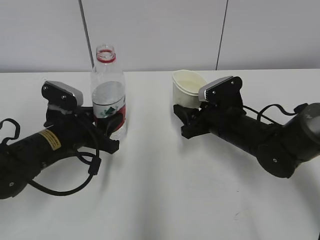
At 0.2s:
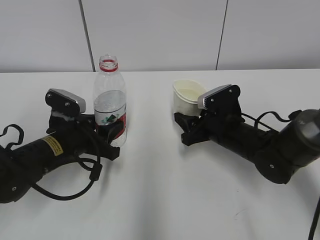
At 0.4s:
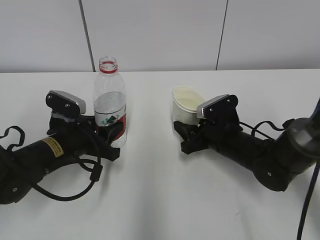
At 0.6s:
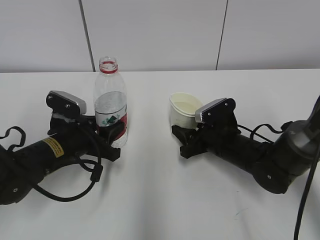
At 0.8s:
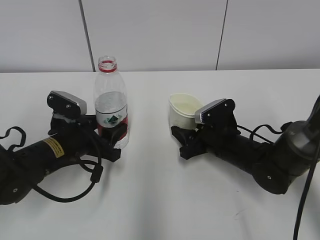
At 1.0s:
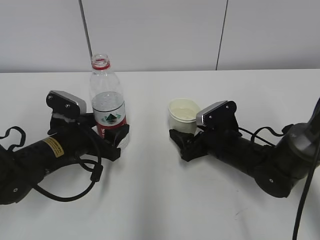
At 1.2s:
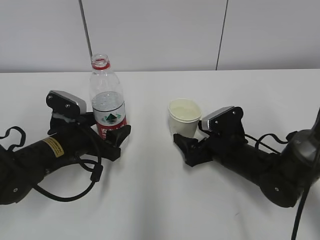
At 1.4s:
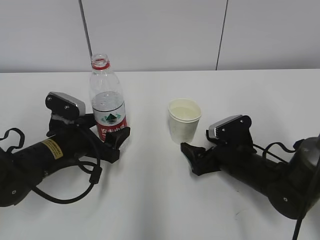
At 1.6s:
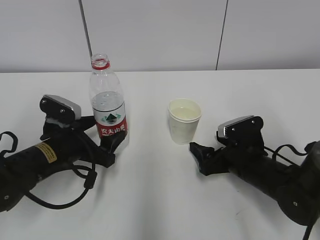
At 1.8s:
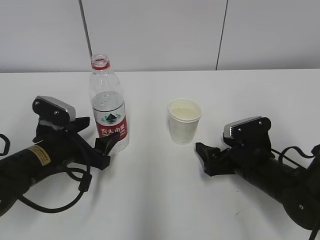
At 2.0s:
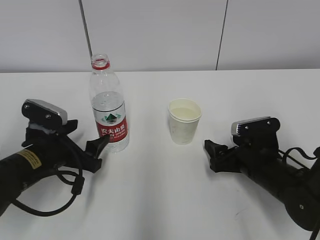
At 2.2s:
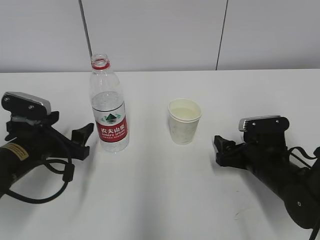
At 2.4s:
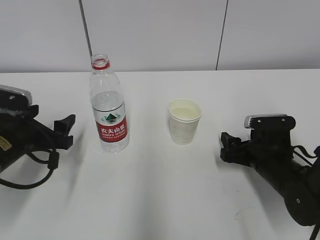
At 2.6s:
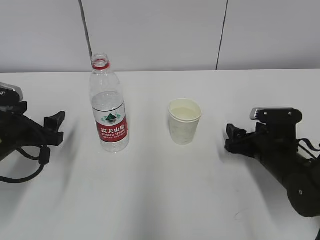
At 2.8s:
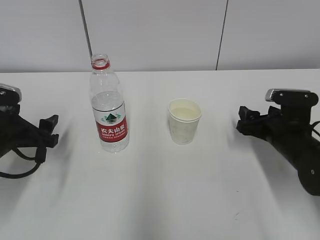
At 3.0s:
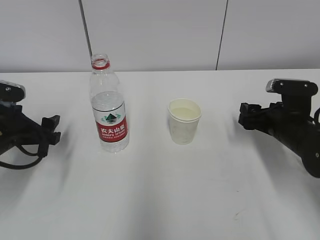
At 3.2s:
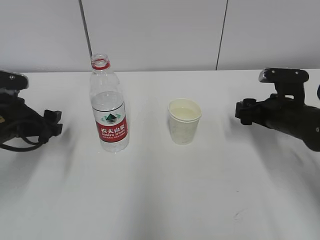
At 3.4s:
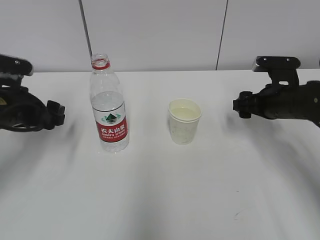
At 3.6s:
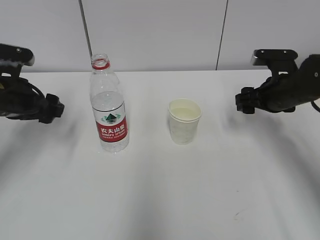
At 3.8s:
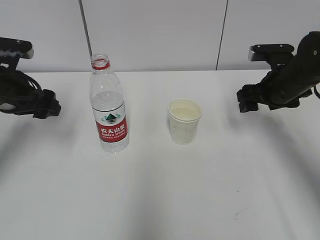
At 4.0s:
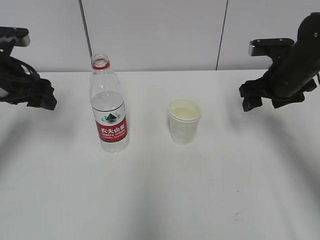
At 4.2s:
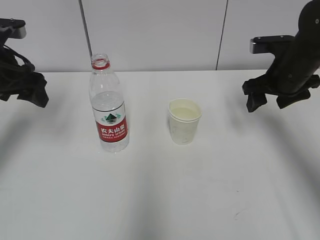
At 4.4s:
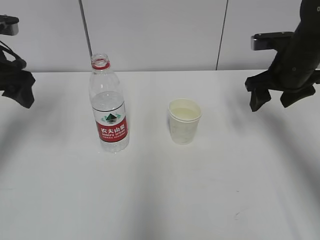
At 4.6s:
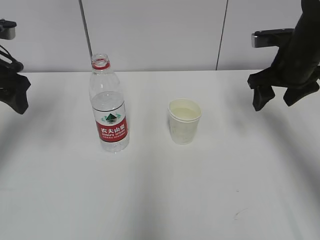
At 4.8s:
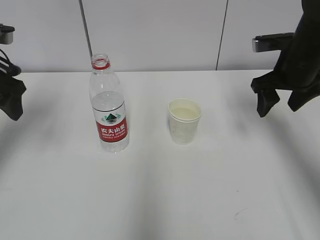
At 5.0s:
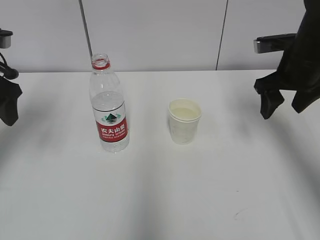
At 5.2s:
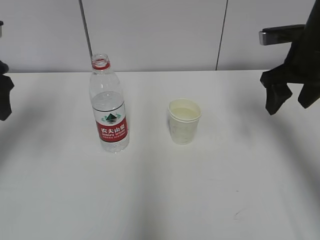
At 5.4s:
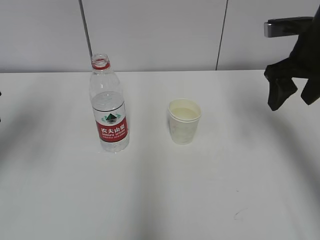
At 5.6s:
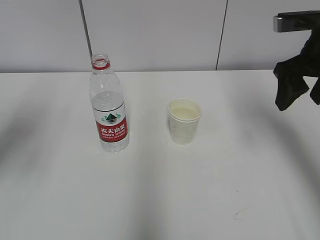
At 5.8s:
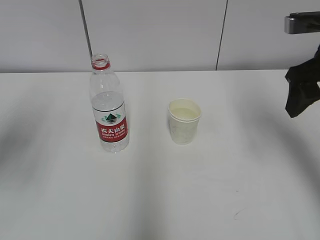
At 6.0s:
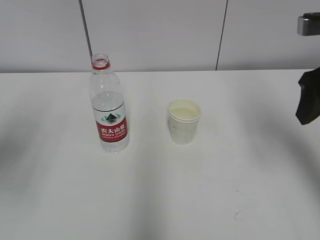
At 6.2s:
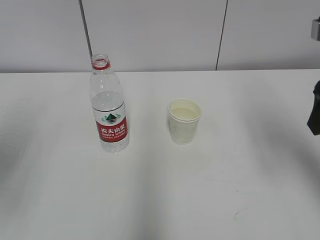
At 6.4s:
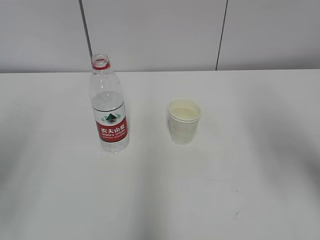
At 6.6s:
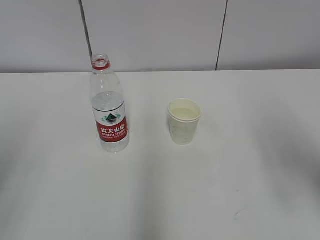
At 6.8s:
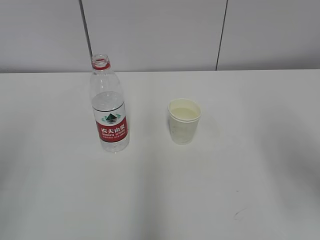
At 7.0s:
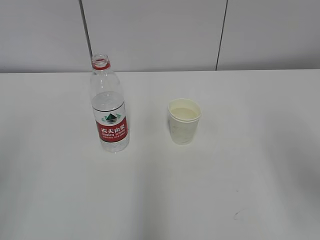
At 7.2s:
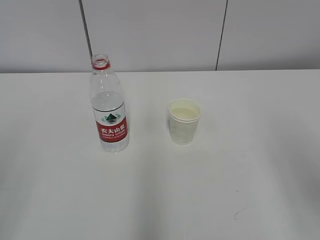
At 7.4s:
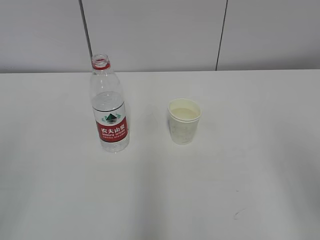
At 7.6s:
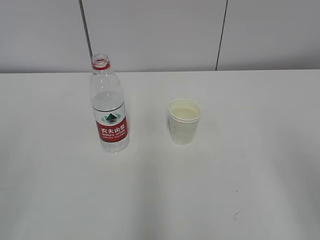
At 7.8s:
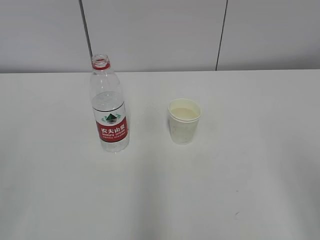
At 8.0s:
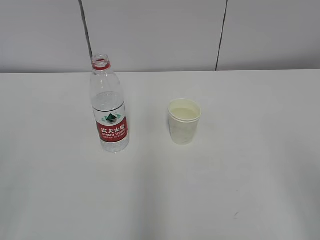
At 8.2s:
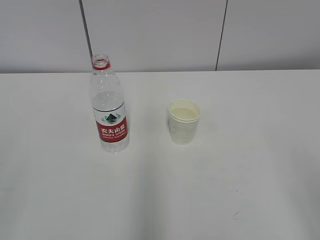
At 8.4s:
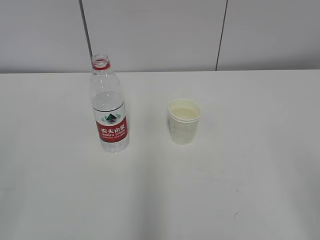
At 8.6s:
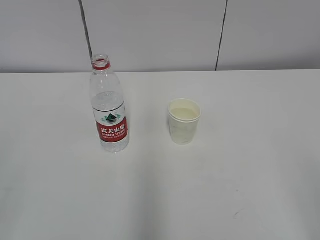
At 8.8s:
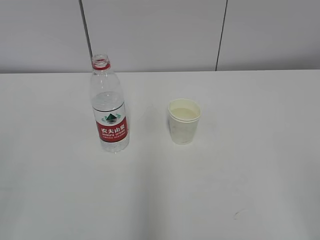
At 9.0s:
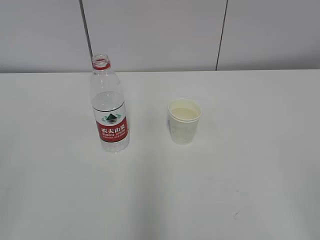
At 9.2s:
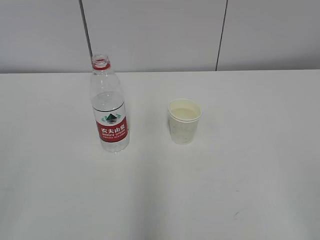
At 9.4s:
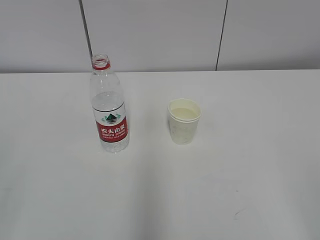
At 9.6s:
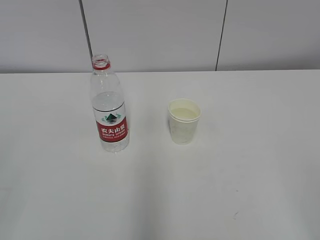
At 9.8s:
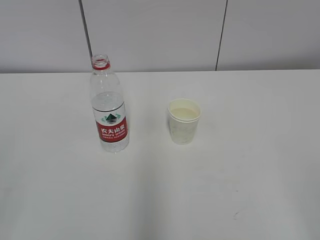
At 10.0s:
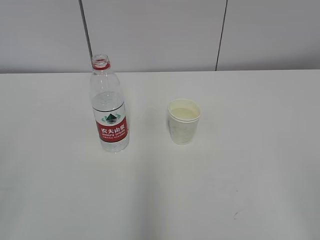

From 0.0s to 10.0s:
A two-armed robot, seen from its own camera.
From 0.0s to 1.4s: The right gripper is displaced downward by some 5 cm, and opens its fingers. The left gripper opens up.
From 1.4s to 2.8s: The left gripper moves to the left, some 10 cm. The right gripper is displaced to the right by roughly 10 cm.
From 2.8s to 4.2s: Both grippers travel together upward and forward, roughly 15 cm.
From 4.2s to 5.8s: The left gripper heads backward, covering approximately 10 cm. The right gripper is displaced upward and backward by about 10 cm.
From 5.8s to 7.2s: The grippers both shift backward by about 20 cm.

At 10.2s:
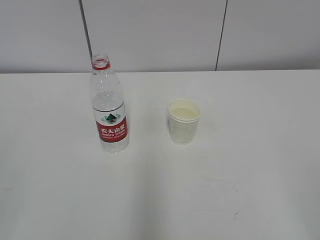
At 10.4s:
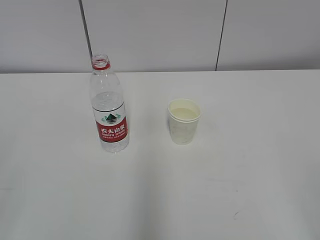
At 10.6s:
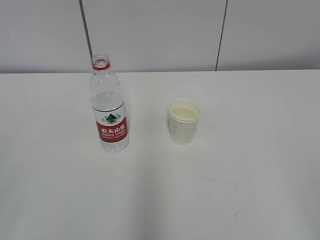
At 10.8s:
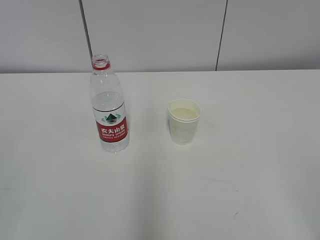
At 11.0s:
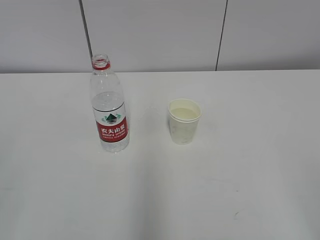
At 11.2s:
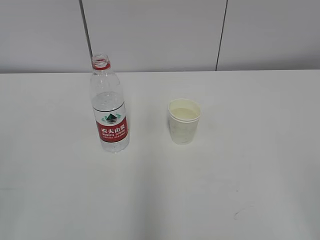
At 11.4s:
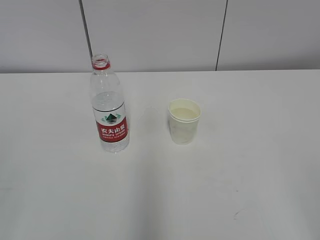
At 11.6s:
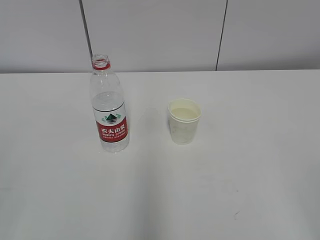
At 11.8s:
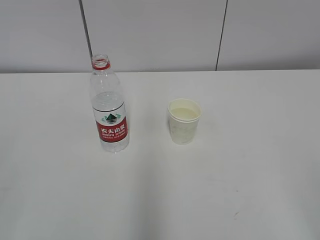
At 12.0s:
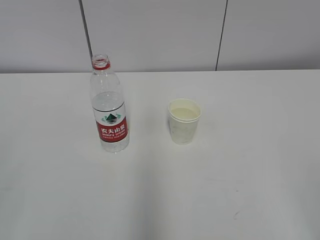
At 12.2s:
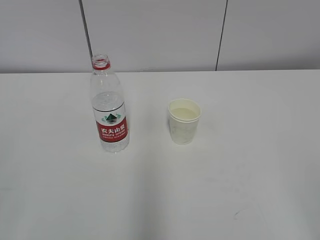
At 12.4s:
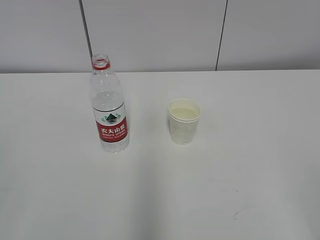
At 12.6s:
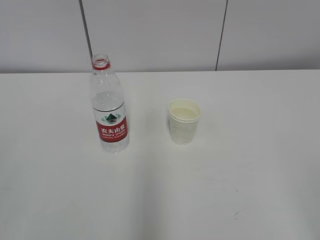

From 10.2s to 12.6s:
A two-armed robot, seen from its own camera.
From 10.2s to 12.6s: Neither gripper changes place.

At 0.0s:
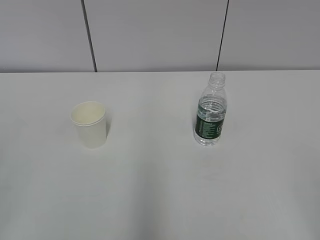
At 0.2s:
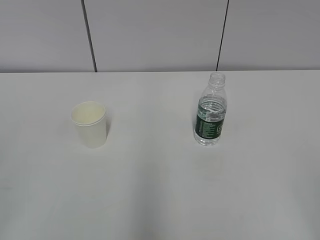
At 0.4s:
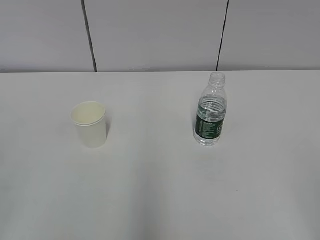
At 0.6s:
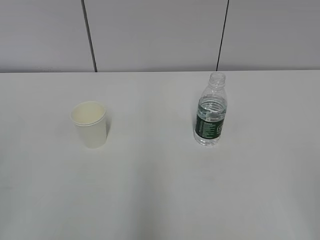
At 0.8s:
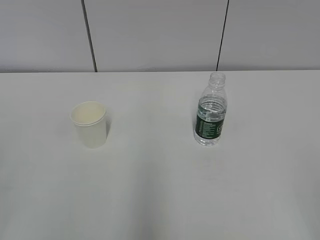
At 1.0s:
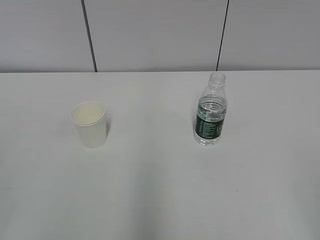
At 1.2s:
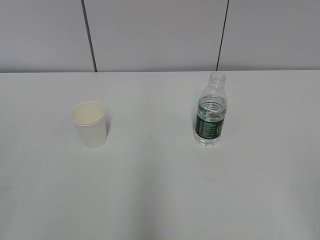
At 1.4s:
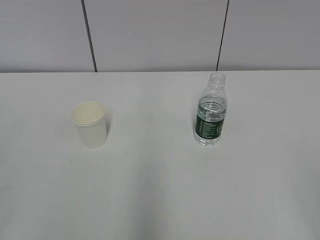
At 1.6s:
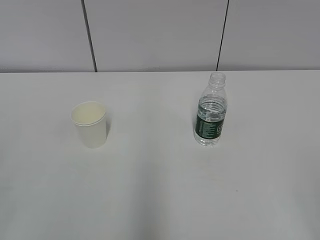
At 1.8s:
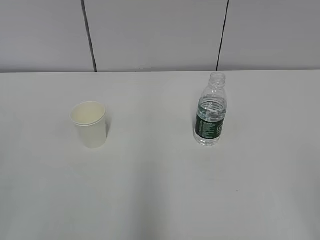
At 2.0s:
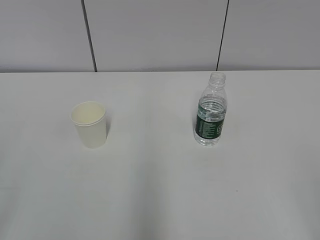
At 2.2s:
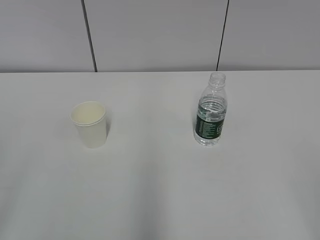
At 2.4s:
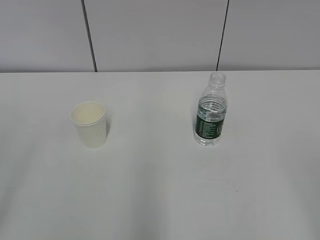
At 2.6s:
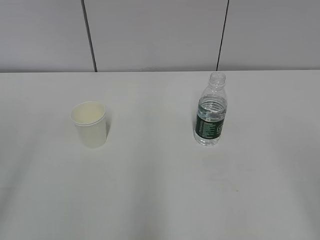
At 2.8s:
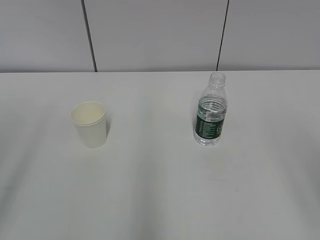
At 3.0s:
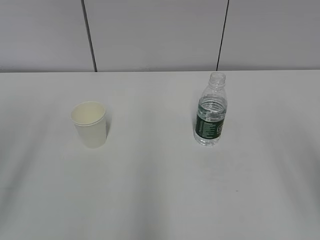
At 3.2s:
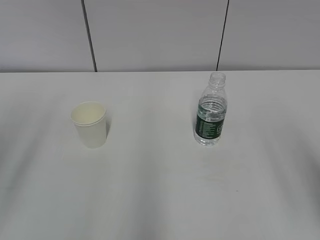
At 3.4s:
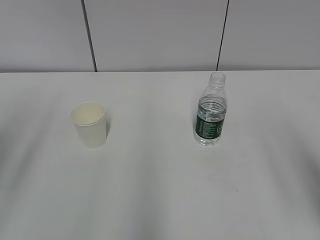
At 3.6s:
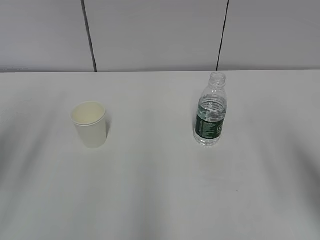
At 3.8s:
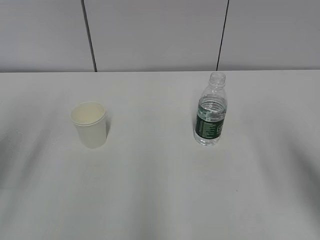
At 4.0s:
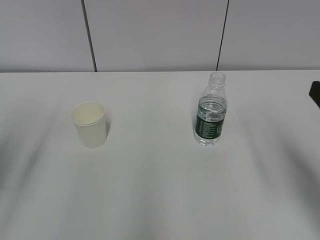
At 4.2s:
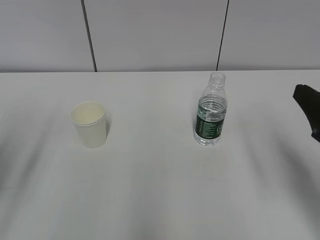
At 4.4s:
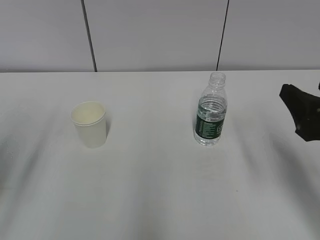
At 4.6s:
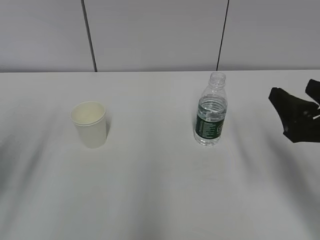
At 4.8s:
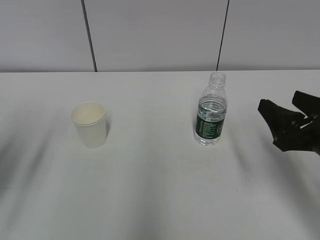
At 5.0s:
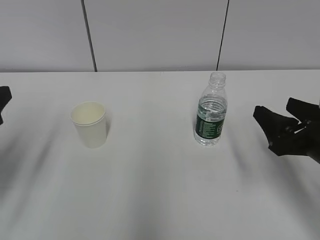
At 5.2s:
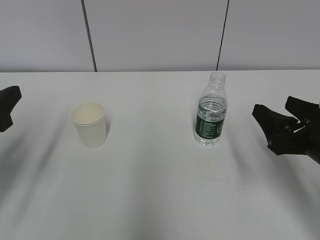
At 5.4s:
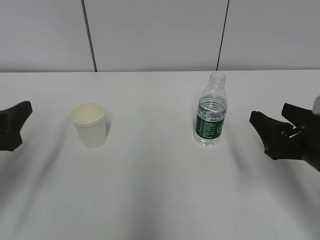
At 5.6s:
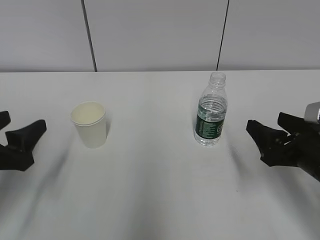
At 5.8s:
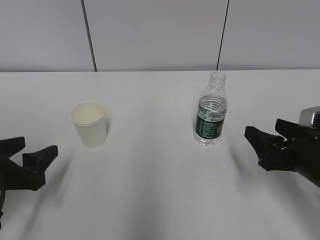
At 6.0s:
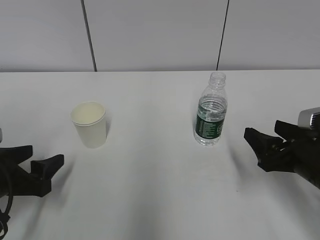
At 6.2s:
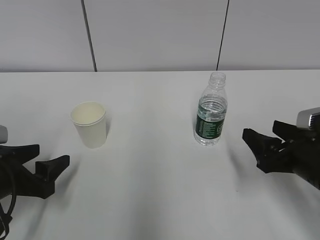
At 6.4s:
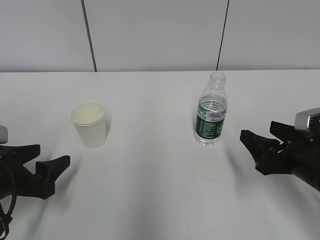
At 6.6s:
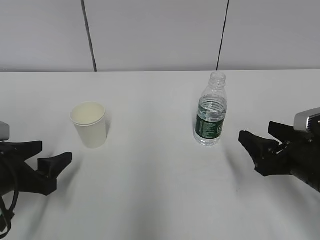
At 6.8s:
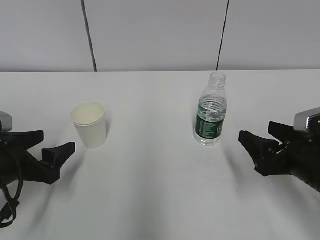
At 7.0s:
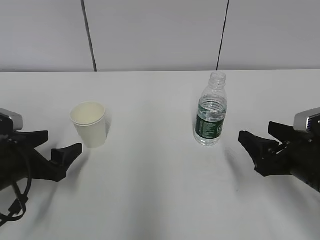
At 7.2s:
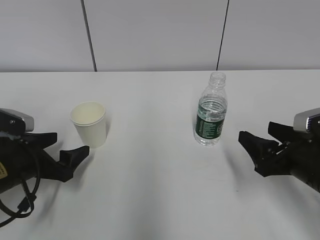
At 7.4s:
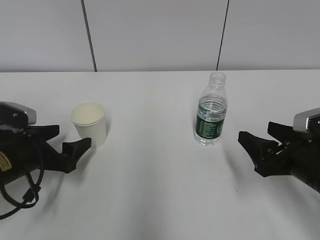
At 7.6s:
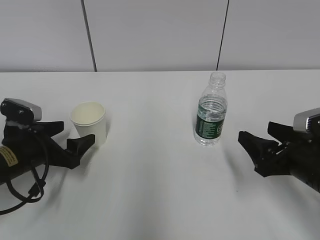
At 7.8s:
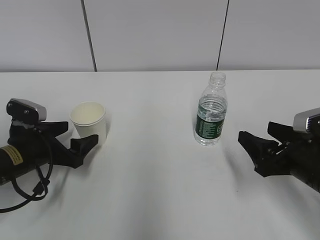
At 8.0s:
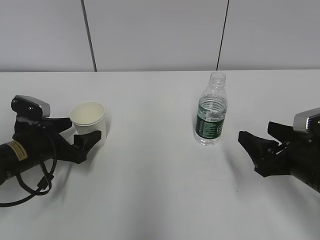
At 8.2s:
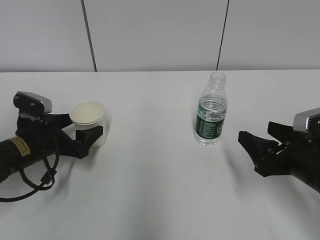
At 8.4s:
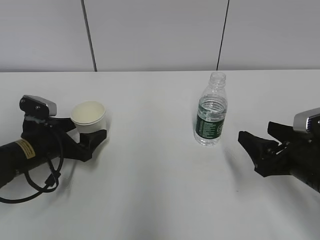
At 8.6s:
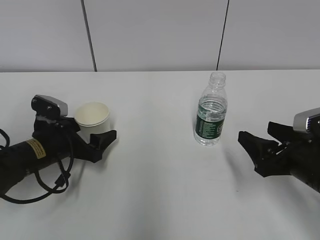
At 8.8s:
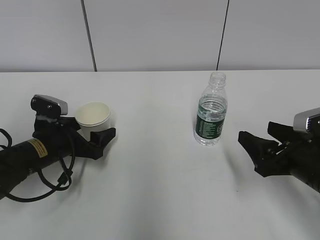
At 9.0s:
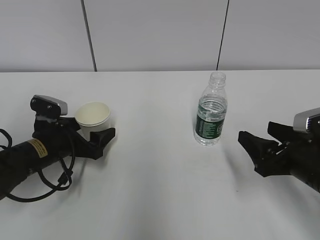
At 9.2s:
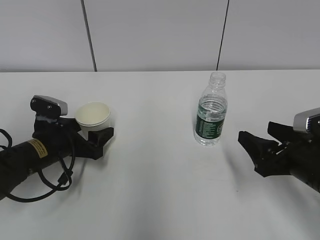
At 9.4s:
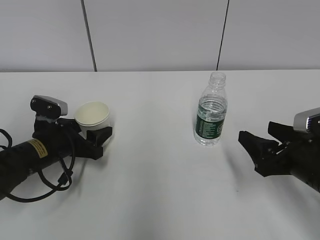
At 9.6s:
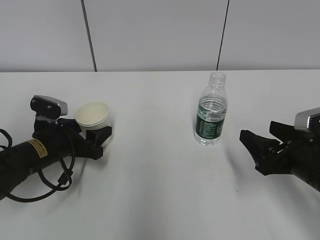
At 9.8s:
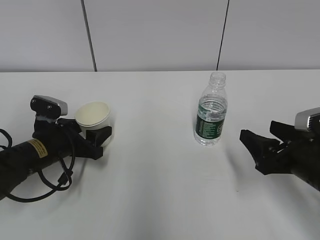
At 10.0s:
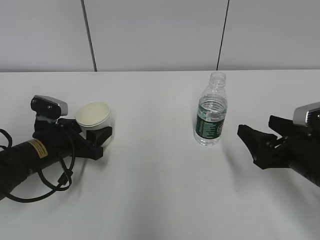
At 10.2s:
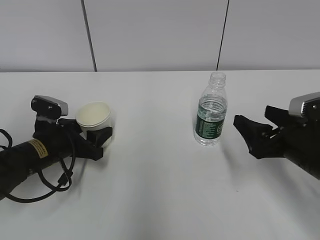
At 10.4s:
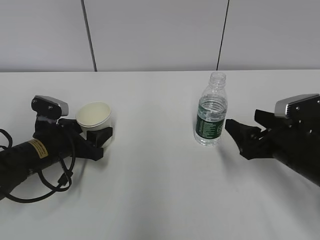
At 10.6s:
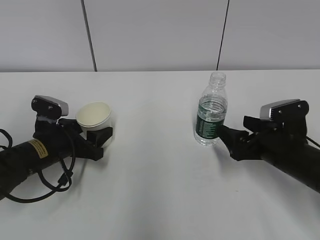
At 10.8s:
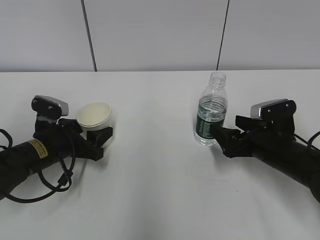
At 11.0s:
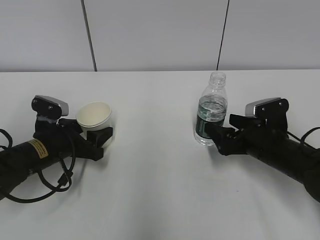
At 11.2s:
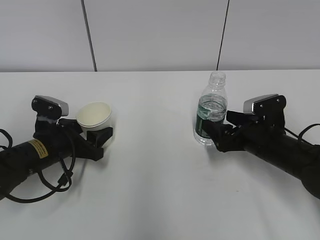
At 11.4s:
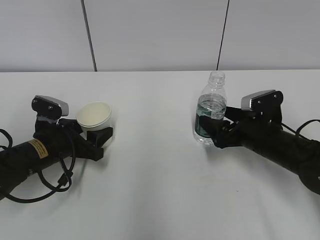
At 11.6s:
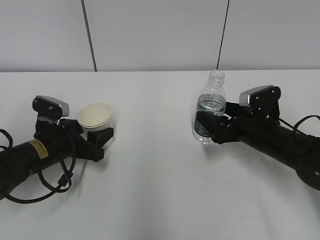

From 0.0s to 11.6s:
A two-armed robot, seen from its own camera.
Step, from 0.0s to 10.4s: Grab the paper cup with the left hand.
Step, from 10.6s to 11.2s: Grab the water bottle with the right hand.
From 2.8s to 4.4s: The right gripper moves forward and downward, about 20 cm.
From 4.4s to 5.8s: The right gripper is displaced downward by about 10 cm. The left gripper travels downward by approximately 15 cm.
From 5.8s to 7.2s: The left gripper heads forward, covering roughly 5 cm, and opens.
From 7.2s to 8.8s: The left gripper goes about 5 cm forward.
From 8.8s to 10.2s: The left gripper closes its fingers.
From 10.2s to 11.6s: The right gripper is displaced forward by approximately 10 cm.
